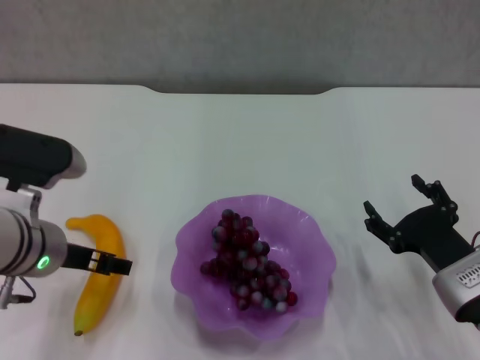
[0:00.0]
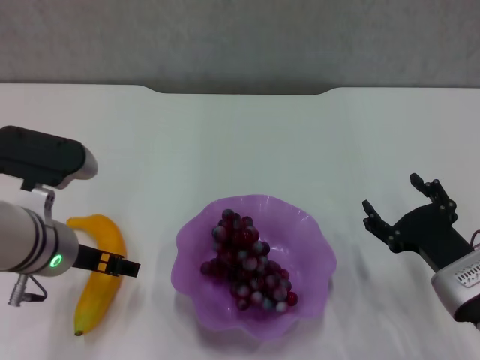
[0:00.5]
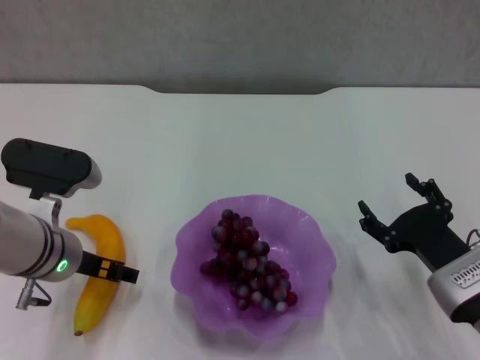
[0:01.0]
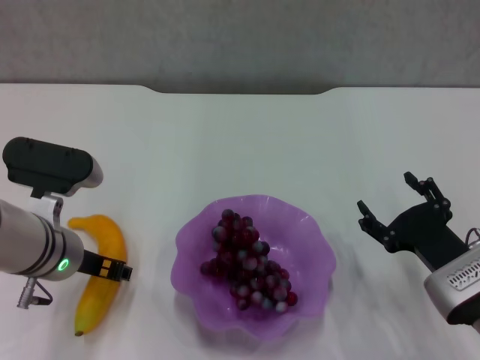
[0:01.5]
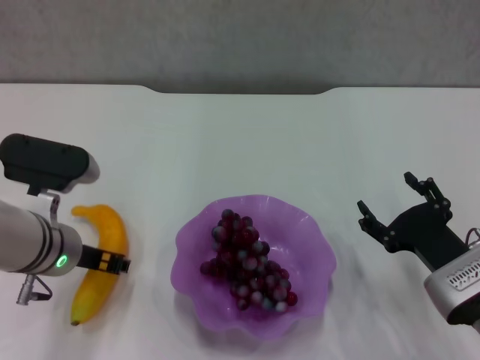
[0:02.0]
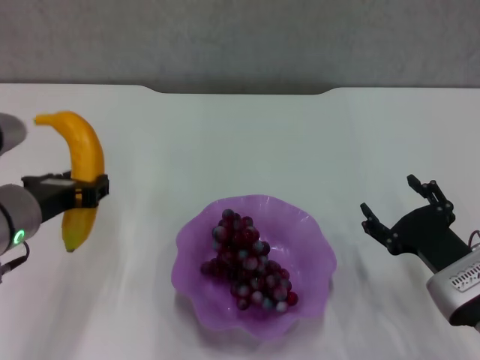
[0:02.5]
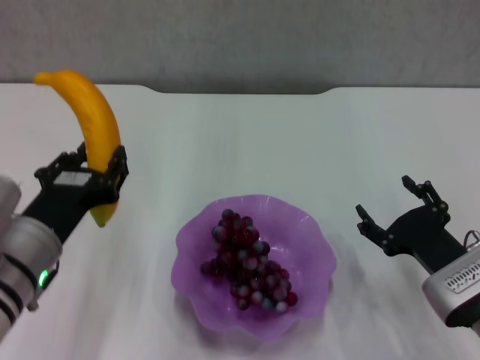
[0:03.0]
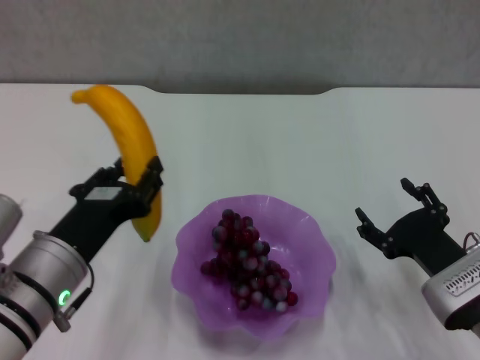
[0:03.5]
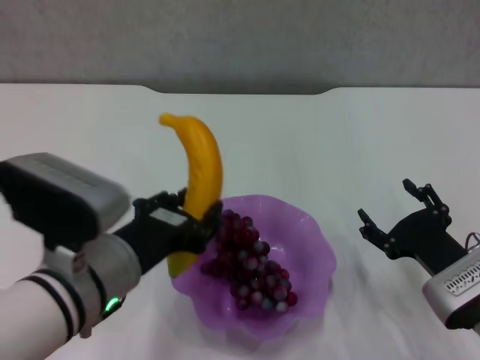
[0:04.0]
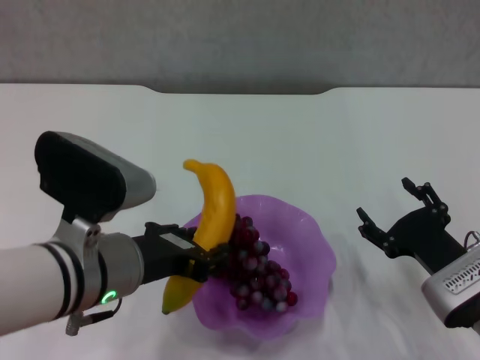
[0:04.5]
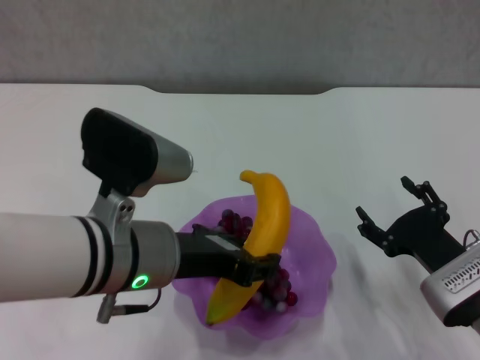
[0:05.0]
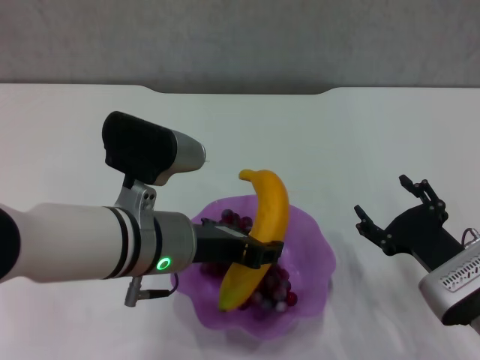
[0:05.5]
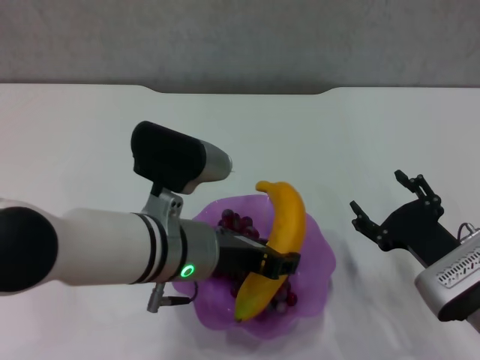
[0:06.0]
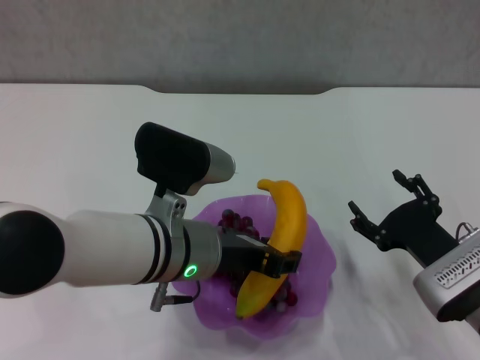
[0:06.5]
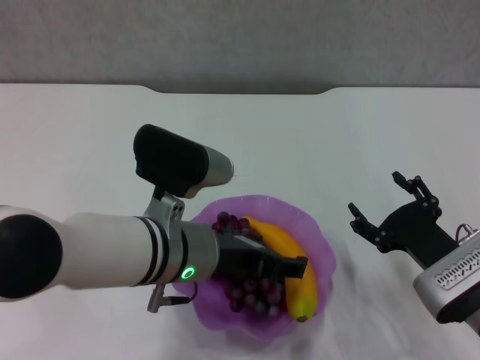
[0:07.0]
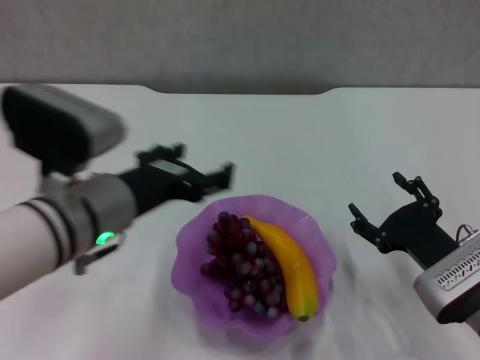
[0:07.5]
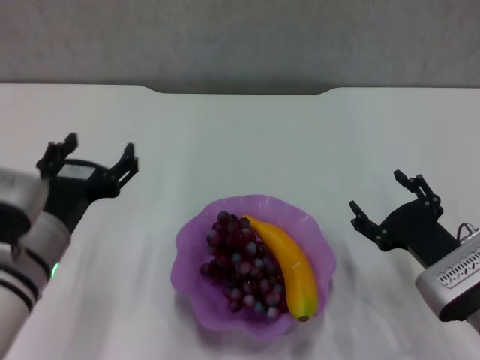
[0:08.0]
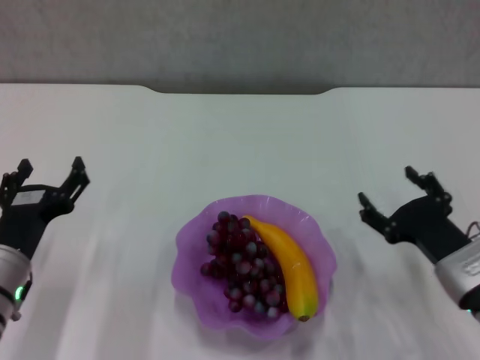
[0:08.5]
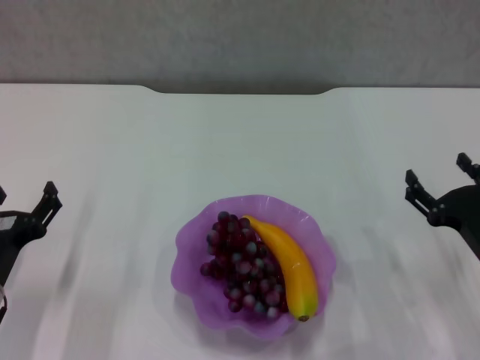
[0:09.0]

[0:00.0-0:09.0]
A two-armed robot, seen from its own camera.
Step, 0:02.0 to 0:07.0: Place the banana in the purple plate with left gripper.
0:00.0 to 0:02.0: The left gripper closes its fingers.
0:02.0 to 0:04.5: The left gripper moves backward and to the right, roughly 10 cm.
0:04.5 to 0:07.0: The left gripper goes approximately 5 cm to the right, and opens up.
0:07.0 to 0:09.0: The left gripper is displaced to the left and downward by approximately 20 cm.

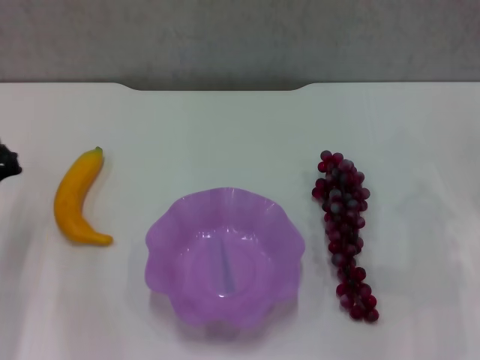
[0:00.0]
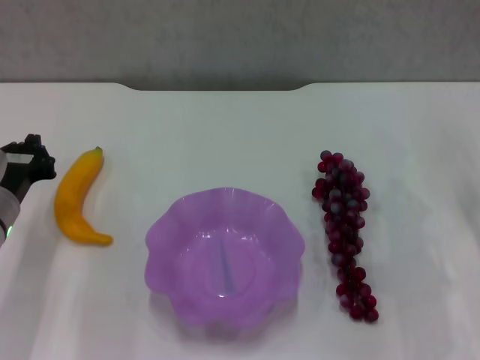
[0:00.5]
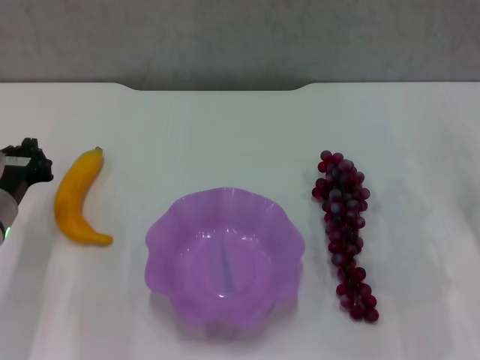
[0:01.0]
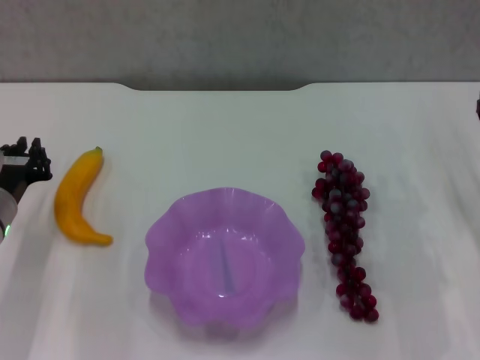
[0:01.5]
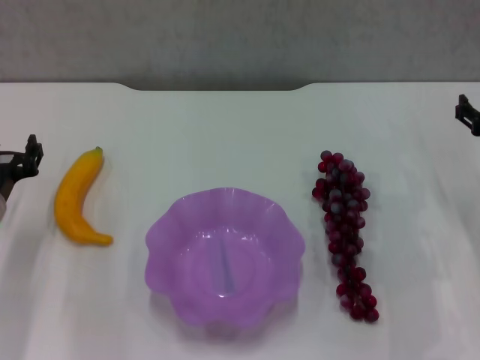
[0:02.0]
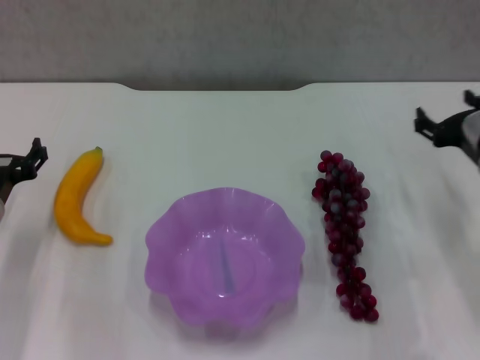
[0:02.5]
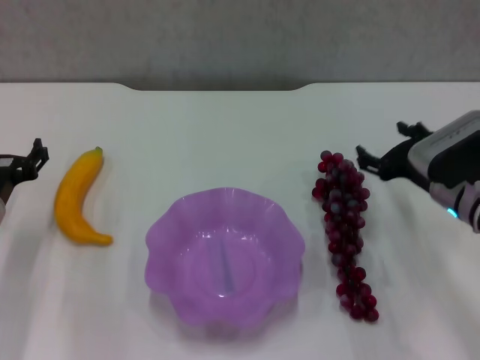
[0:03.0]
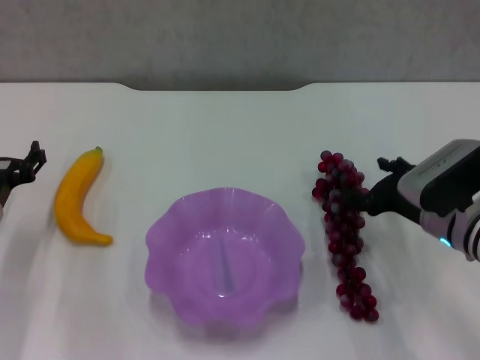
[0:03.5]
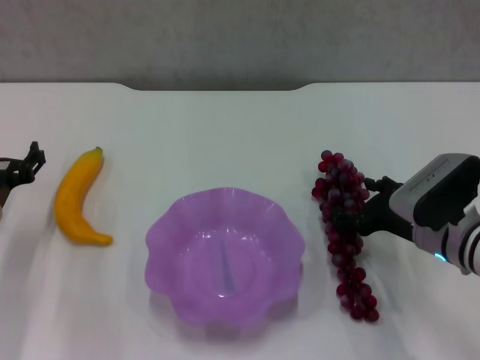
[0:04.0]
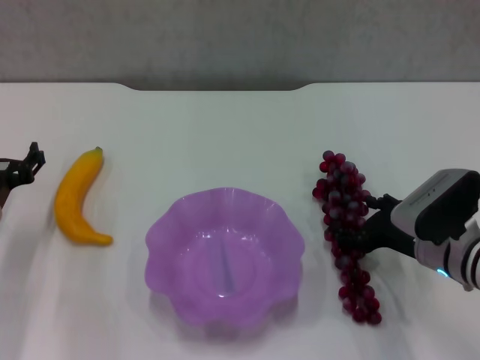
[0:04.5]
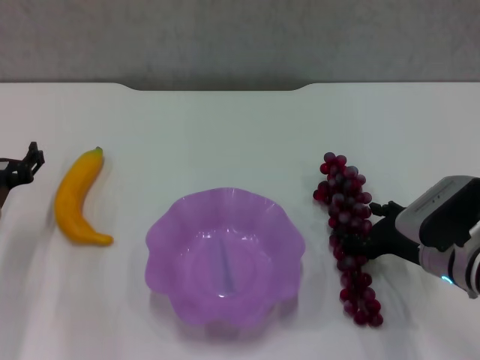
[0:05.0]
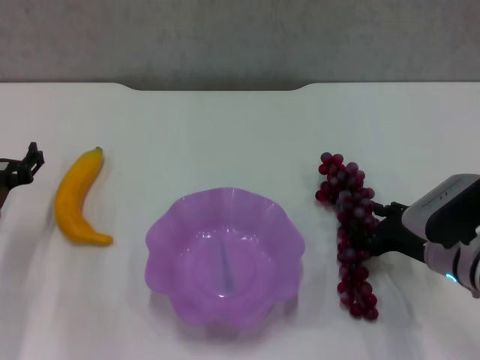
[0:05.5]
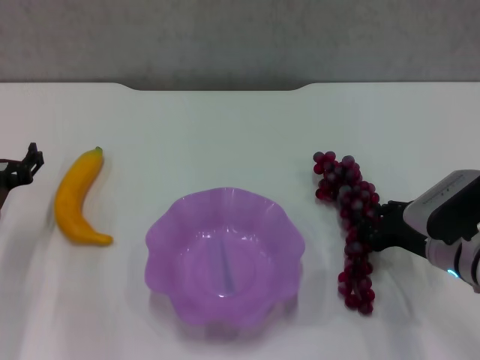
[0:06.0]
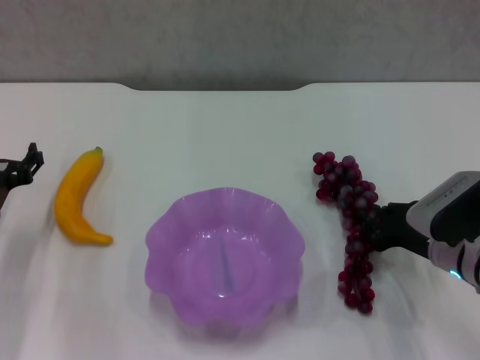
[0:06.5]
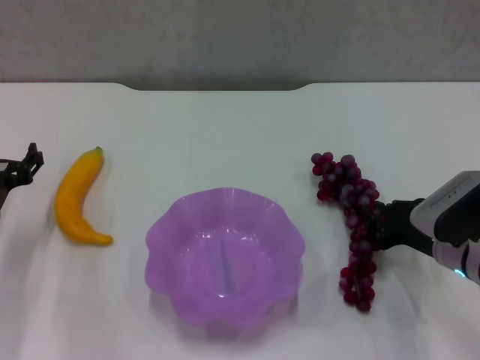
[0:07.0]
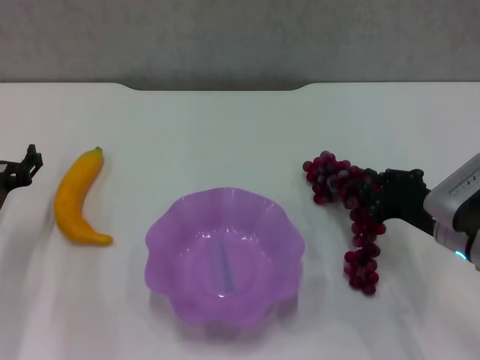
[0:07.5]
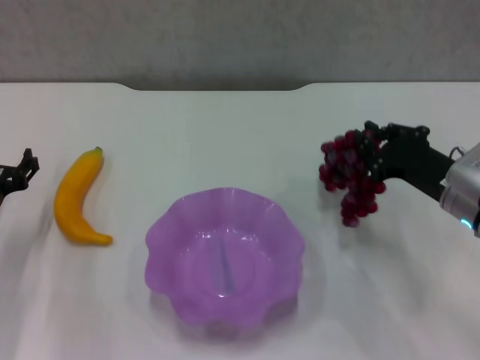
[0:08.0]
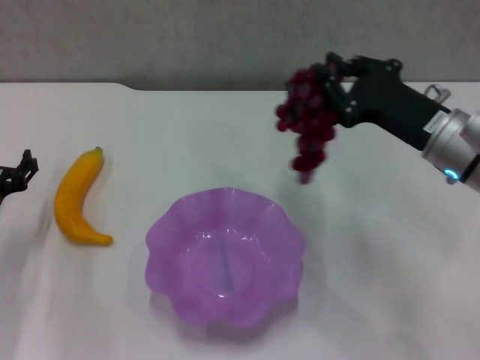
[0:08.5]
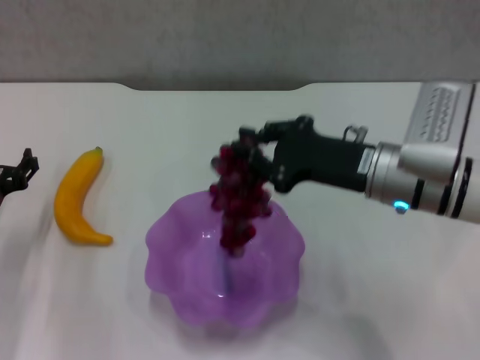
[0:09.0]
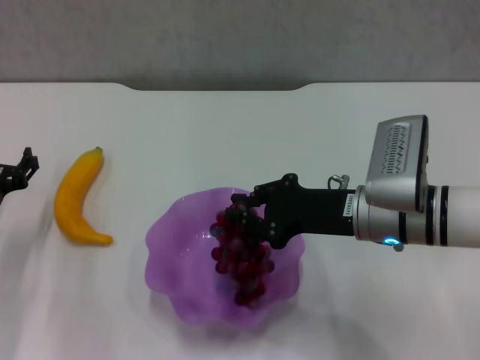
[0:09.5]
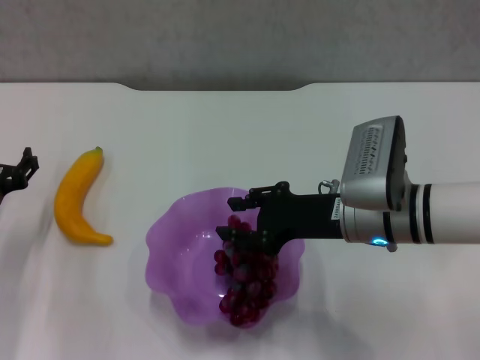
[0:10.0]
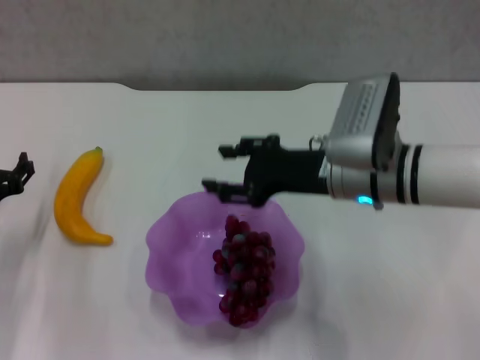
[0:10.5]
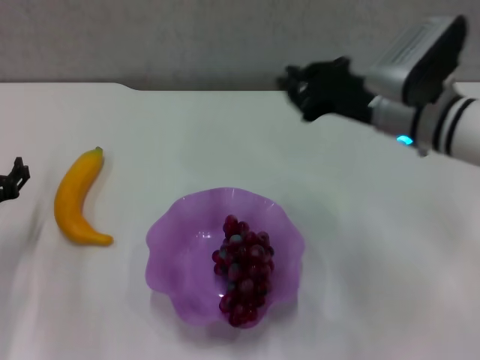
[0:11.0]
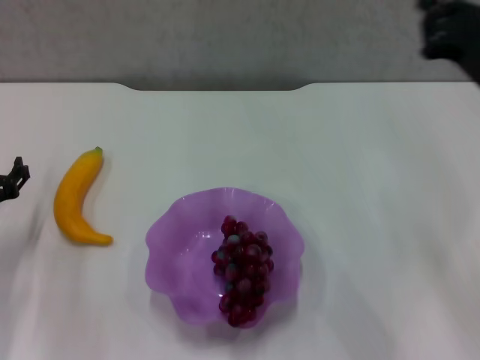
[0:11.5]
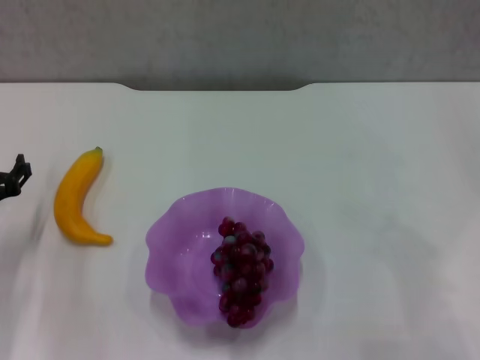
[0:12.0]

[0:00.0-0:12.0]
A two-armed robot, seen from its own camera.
Step, 0:00.0 to 0:06.5: Grasp the grape with right gripper.
Step, 0:07.0 to 0:10.5: Place the grape in the purple plate with right gripper.
0:00.0 to 0:02.0: The right gripper opens its fingers. Meanwhile the left gripper opens up.
0:02.0 to 0:04.0: The right gripper goes roughly 10 cm to the left and downward.
0:04.0 to 0:06.0: The right gripper closes its fingers.
0:06.0 to 0:08.0: The right gripper shifts some 5 cm upward.
0:08.0 to 0:10.0: The right gripper is displaced to the left by roughly 10 cm.
0:10.0 to 0:12.0: The right gripper travels to the right by about 20 cm, and closes up.

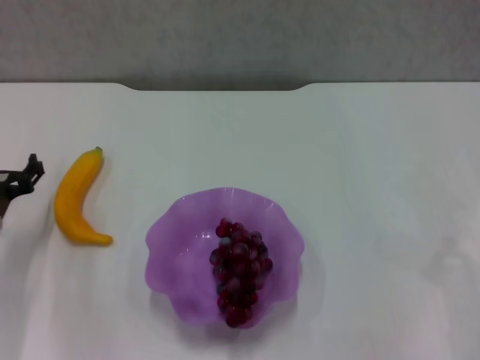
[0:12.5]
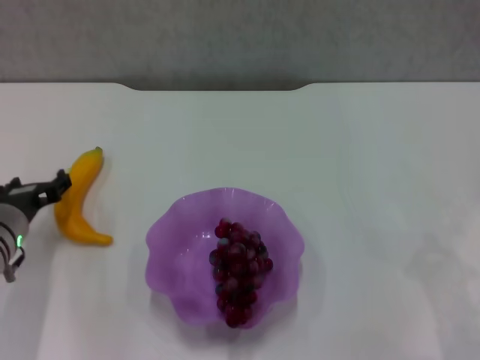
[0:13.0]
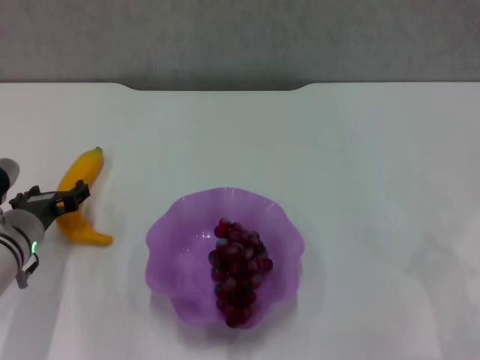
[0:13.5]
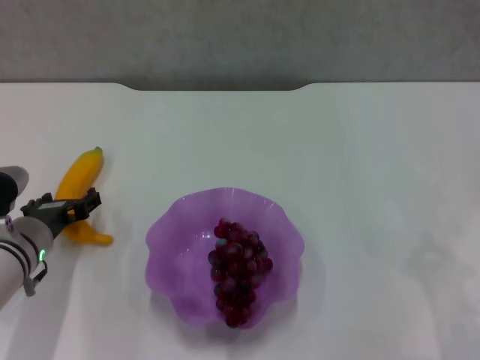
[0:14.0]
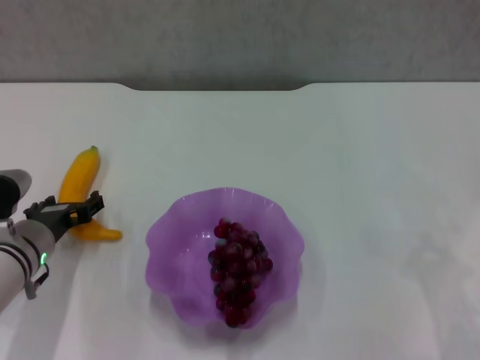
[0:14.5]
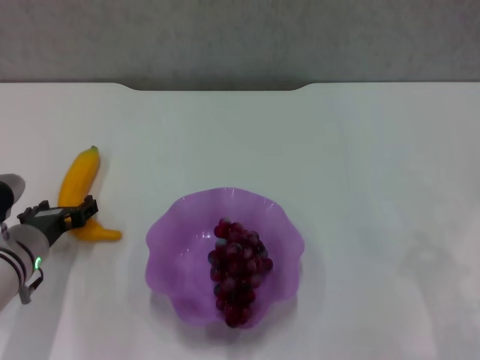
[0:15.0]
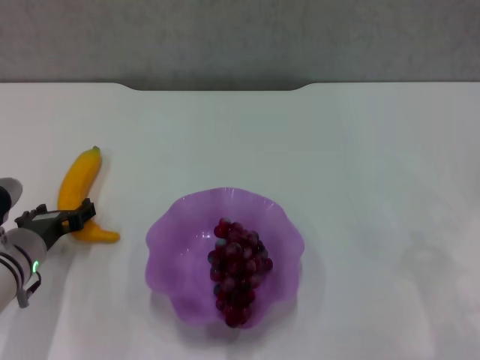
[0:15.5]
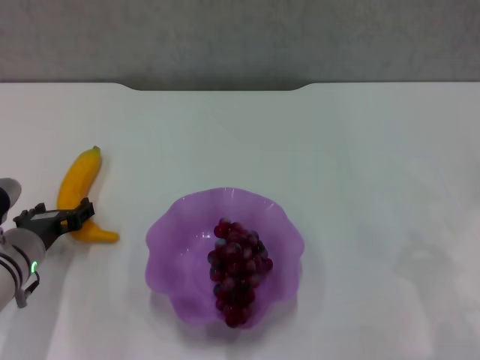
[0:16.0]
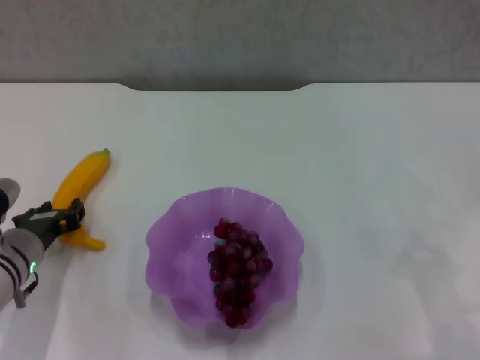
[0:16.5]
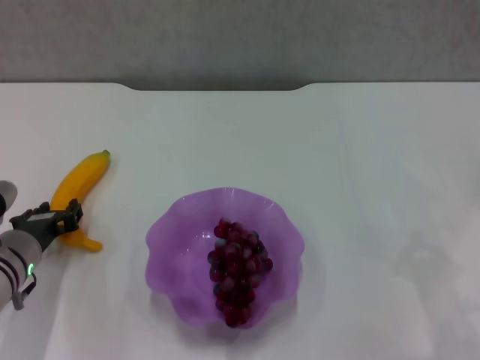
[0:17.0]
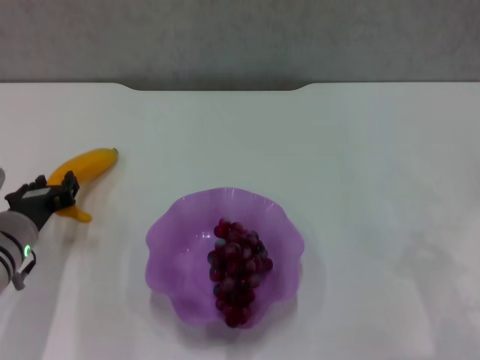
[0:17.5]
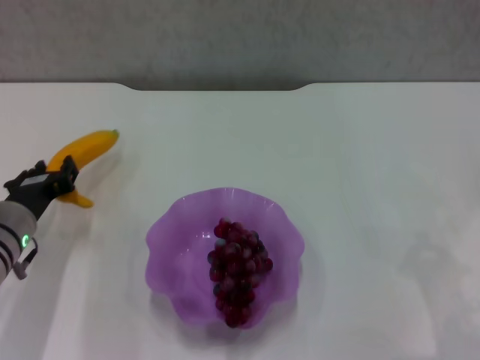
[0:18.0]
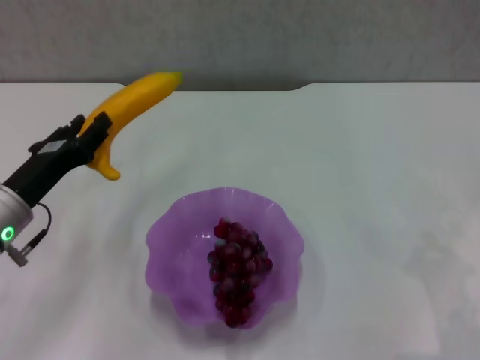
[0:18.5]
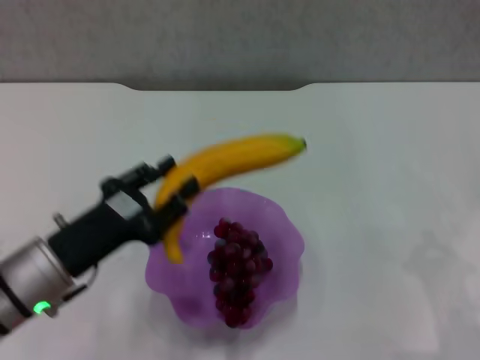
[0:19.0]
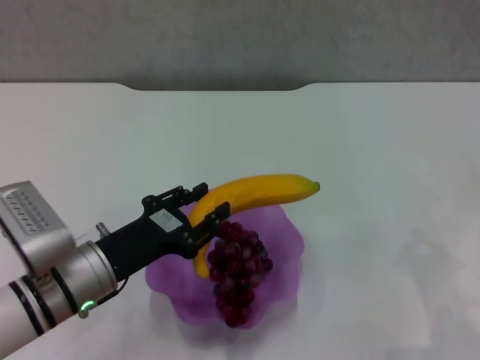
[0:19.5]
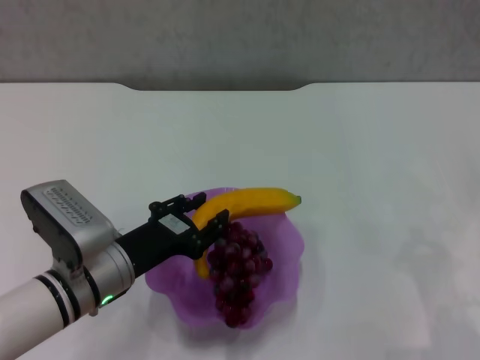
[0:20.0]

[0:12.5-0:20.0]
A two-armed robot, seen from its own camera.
Step, 0:12.5 to 0:16.5: Grasp the banana with left gripper.
0:12.5 to 0:18.0: The grippers make only small movements.
0:18.0 to 0:20.0: The left gripper shifts some 10 cm to the right.
